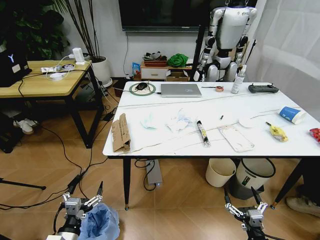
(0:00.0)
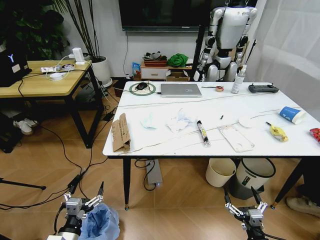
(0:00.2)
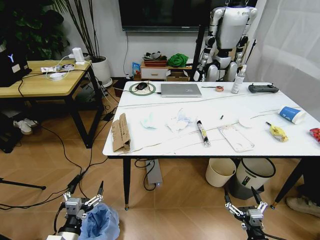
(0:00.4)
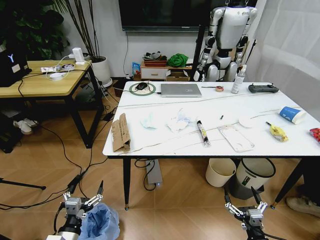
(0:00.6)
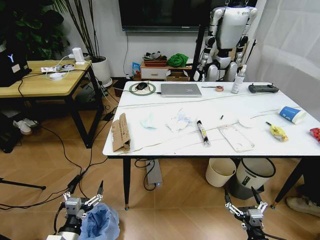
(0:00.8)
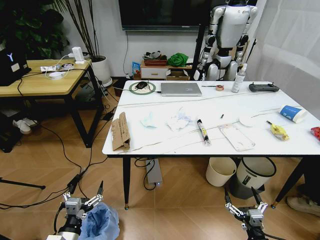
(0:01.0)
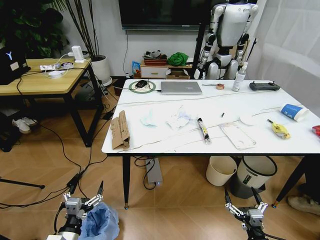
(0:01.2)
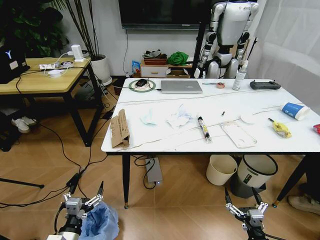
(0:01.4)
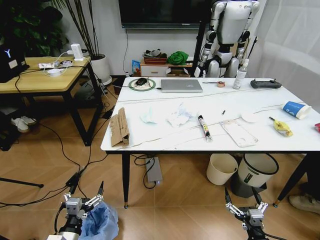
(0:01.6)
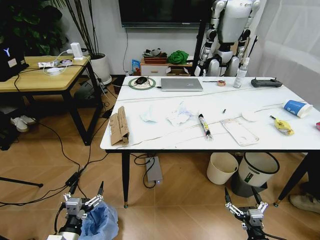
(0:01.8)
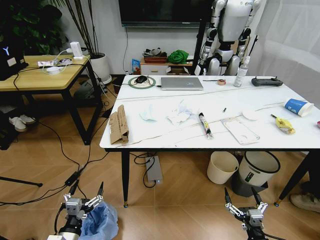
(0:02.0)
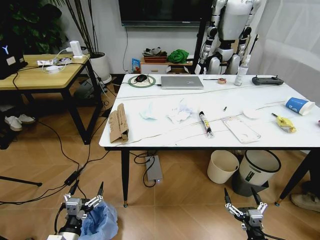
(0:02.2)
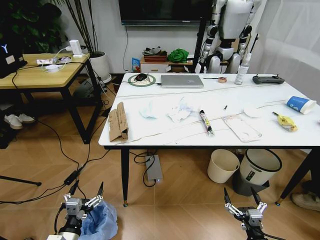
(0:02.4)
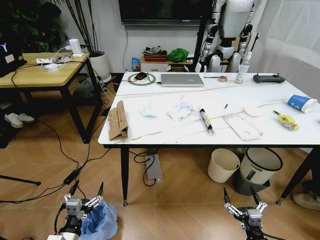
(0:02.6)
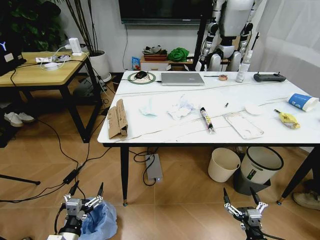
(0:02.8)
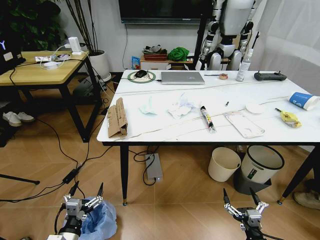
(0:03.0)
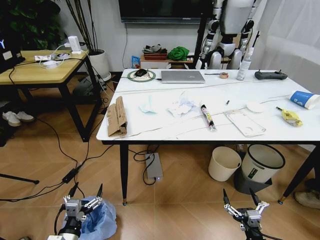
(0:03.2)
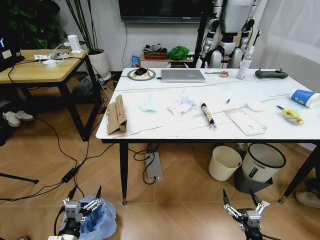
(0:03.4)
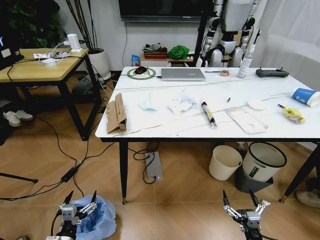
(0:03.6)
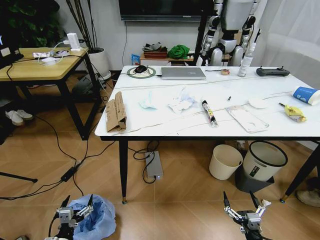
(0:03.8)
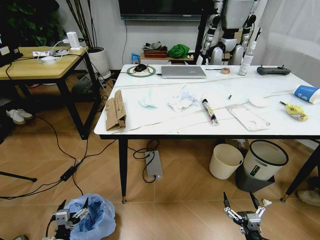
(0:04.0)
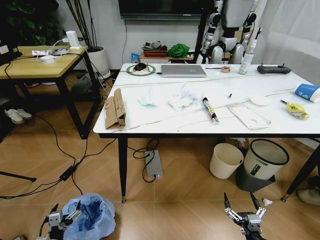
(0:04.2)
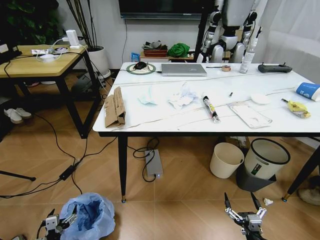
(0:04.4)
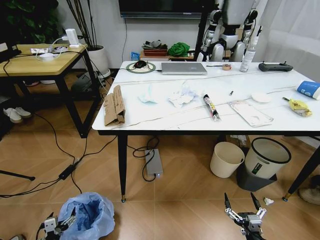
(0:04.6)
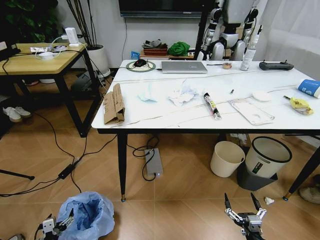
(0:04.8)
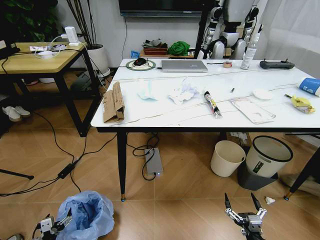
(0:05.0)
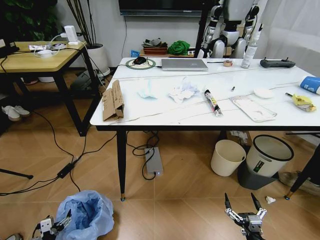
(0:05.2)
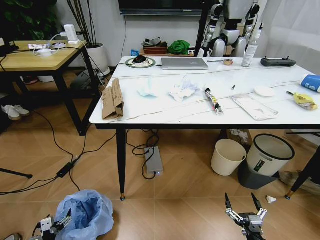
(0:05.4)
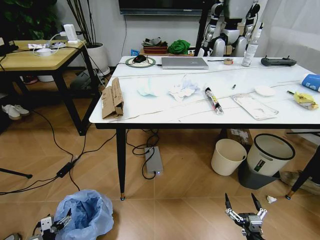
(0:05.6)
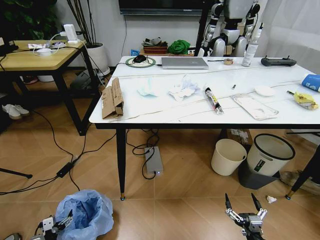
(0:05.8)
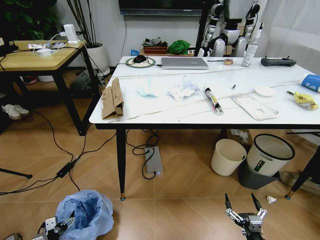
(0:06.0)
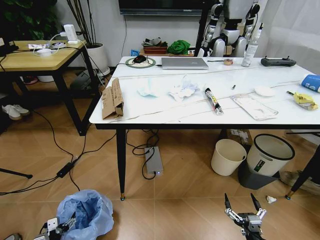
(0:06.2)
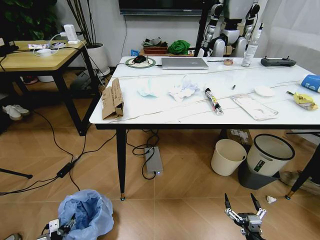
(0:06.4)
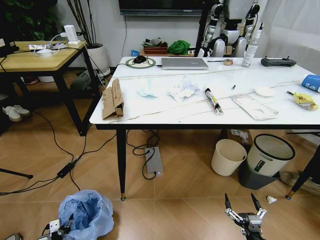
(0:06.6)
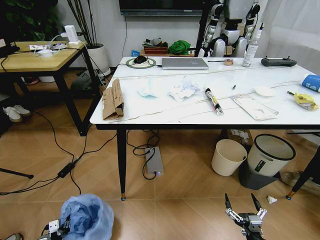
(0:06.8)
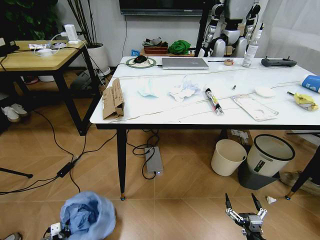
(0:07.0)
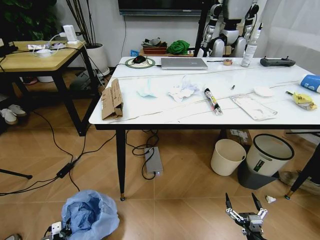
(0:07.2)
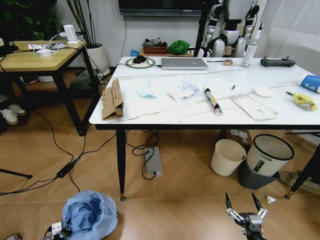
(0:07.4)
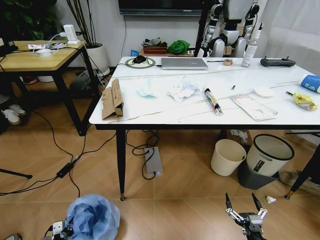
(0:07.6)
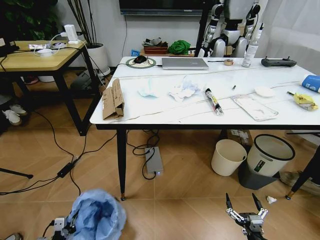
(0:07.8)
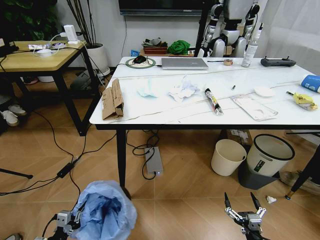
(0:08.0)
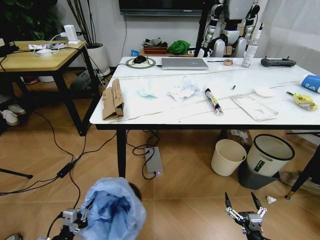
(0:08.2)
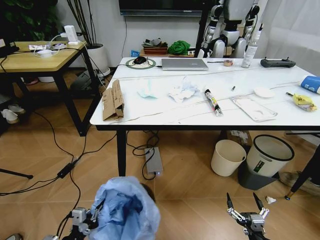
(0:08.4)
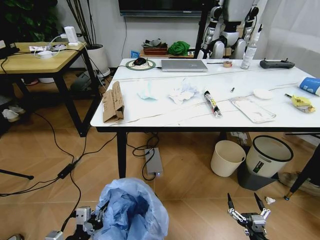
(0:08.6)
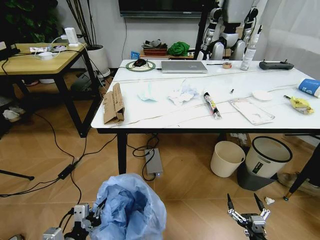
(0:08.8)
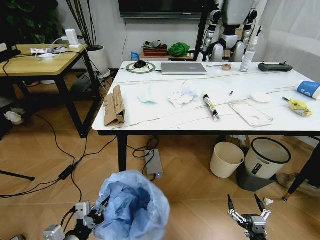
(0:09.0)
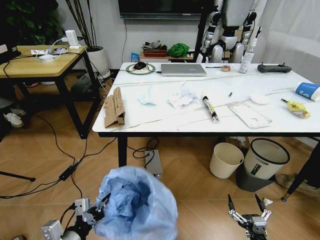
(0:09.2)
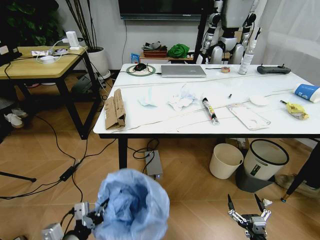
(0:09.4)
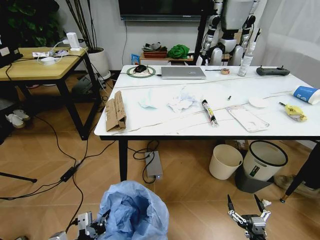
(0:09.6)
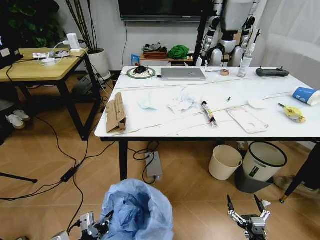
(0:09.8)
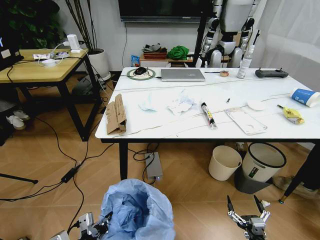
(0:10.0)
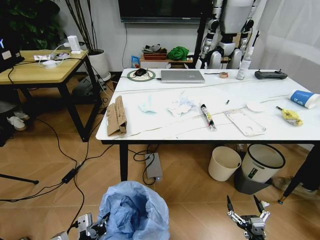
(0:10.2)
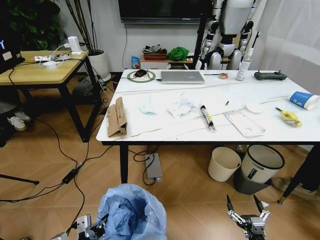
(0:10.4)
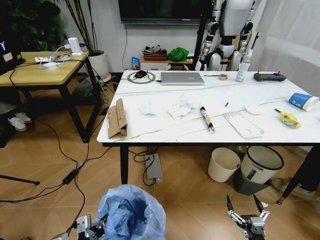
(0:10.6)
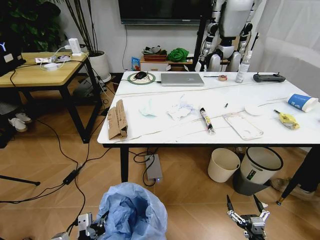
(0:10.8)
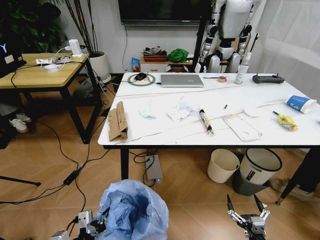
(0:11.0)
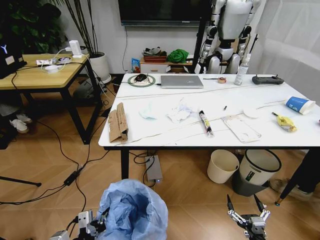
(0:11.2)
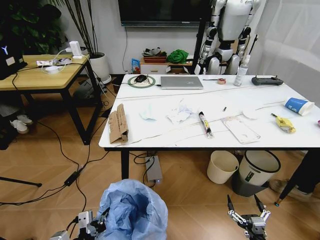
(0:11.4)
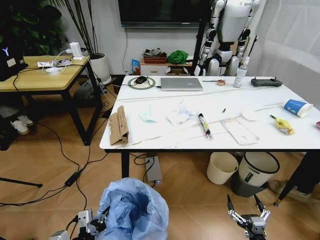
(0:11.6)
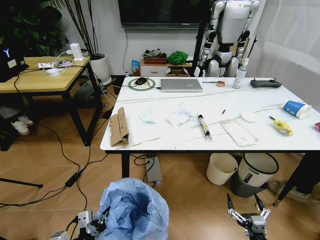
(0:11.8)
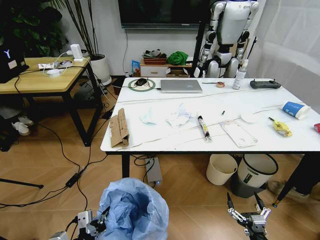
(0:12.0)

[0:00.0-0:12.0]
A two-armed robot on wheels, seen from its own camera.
Task of the whole recording: Pick up the trash bin and place the trash from the table into it.
0:03.0 to 0:04.4: The left gripper moves downward and to the left, some 15 cm.
0:04.4 to 0:06.0: The left gripper changes place by some 5 cm.
0:06.0 to 0:07.6: The left gripper closes.
0:07.6 to 0:09.0: The left gripper travels upward and to the right by approximately 30 cm.

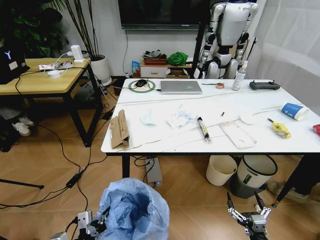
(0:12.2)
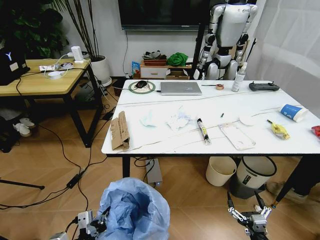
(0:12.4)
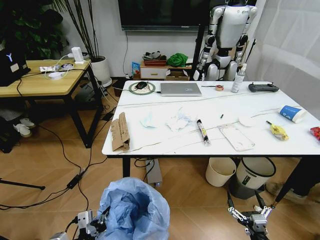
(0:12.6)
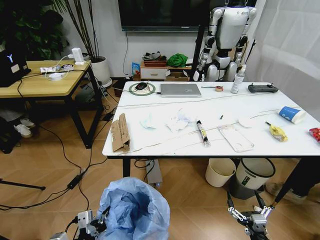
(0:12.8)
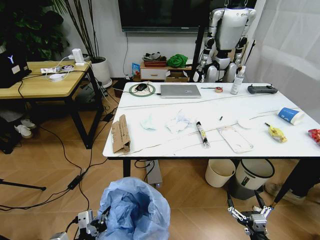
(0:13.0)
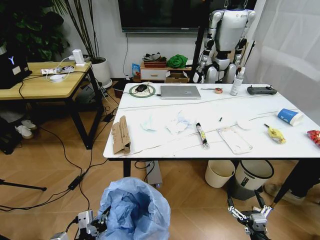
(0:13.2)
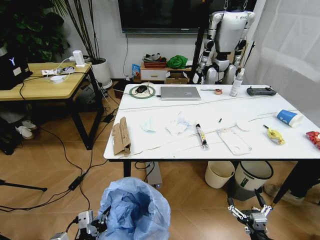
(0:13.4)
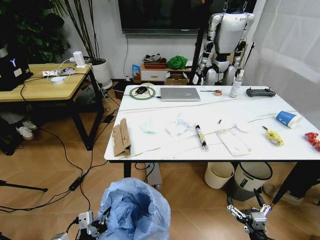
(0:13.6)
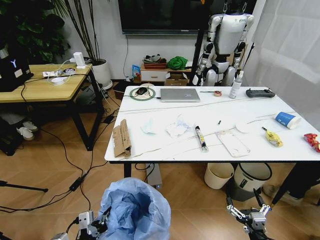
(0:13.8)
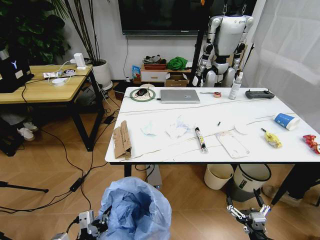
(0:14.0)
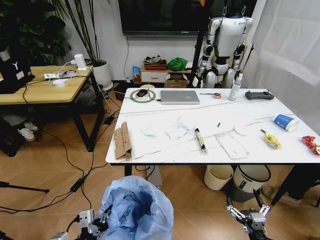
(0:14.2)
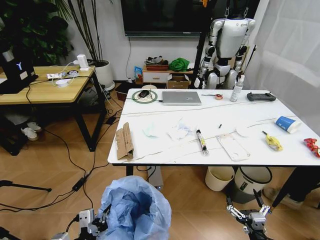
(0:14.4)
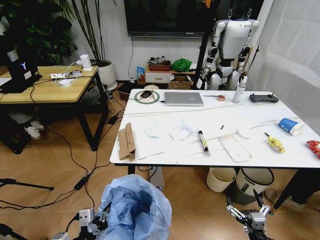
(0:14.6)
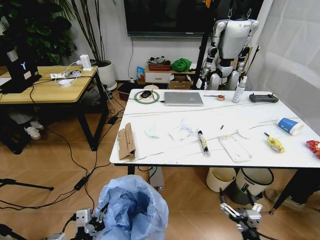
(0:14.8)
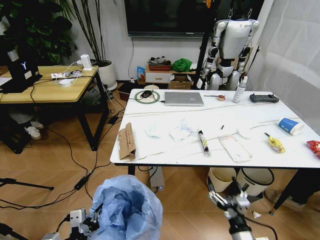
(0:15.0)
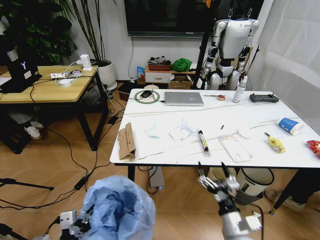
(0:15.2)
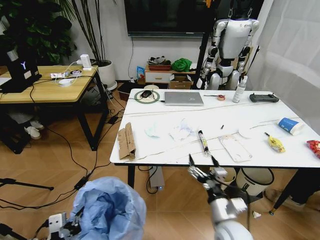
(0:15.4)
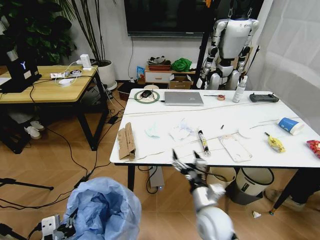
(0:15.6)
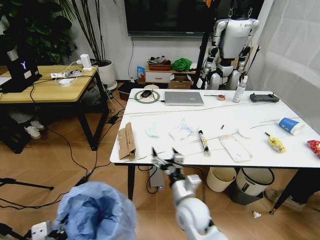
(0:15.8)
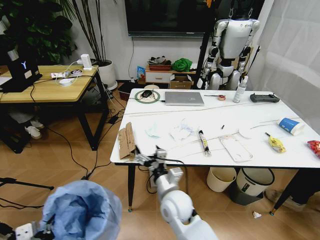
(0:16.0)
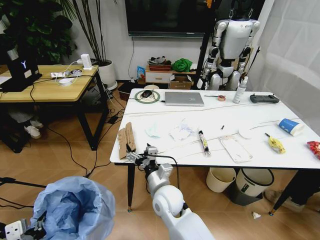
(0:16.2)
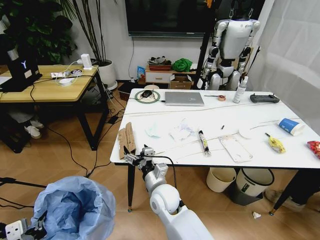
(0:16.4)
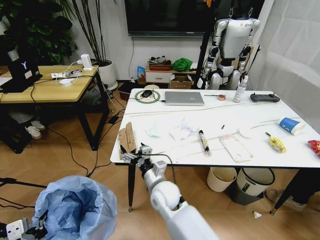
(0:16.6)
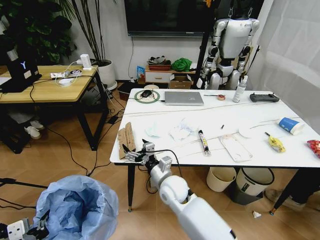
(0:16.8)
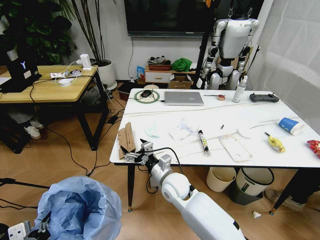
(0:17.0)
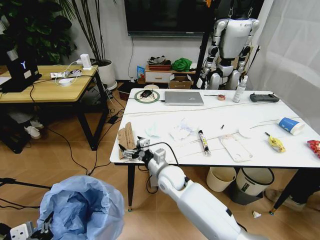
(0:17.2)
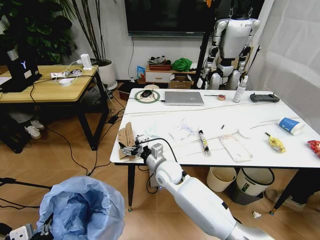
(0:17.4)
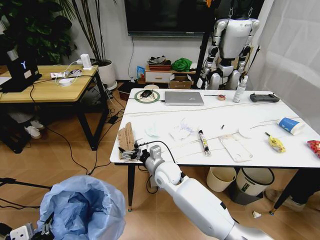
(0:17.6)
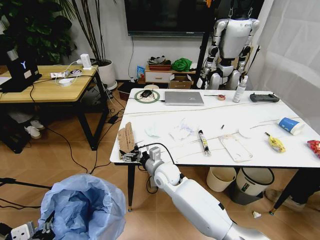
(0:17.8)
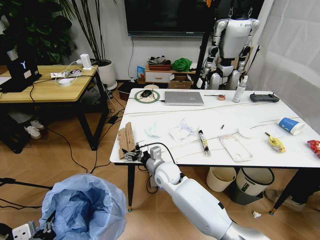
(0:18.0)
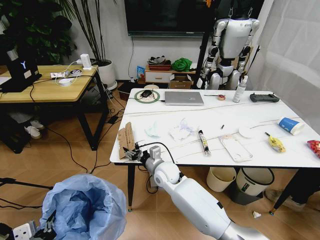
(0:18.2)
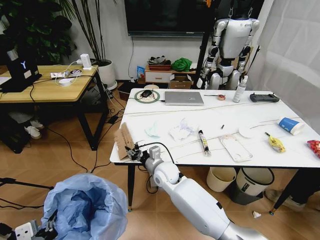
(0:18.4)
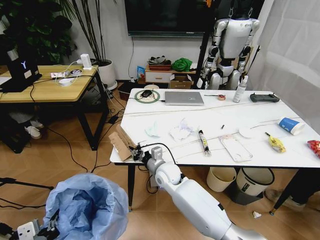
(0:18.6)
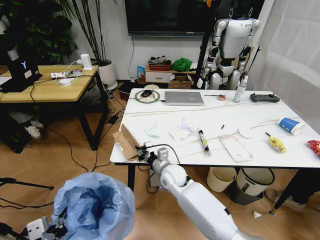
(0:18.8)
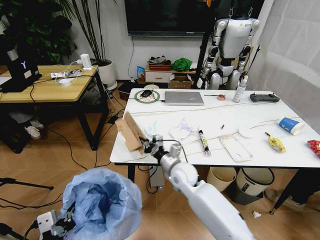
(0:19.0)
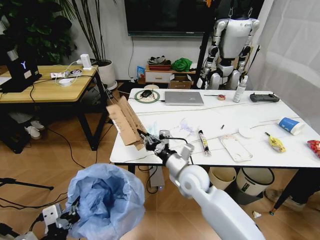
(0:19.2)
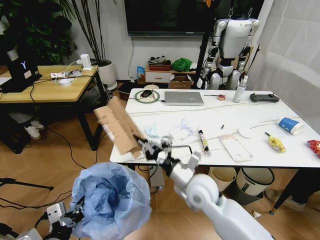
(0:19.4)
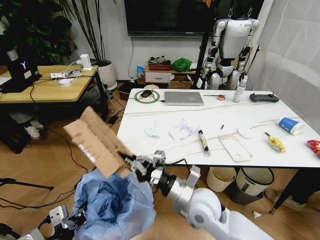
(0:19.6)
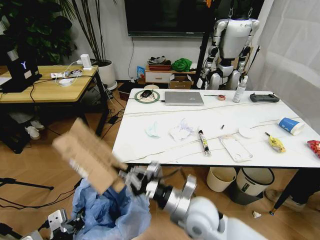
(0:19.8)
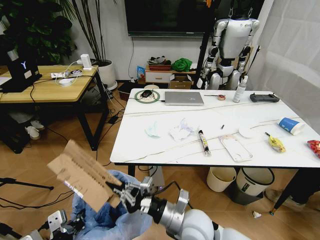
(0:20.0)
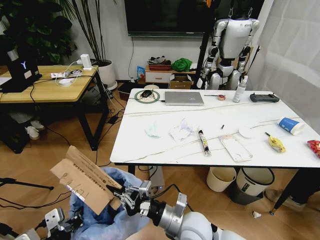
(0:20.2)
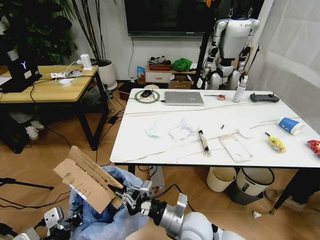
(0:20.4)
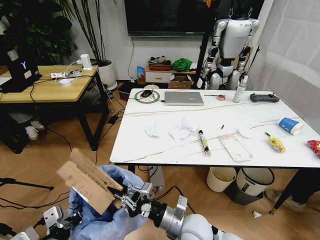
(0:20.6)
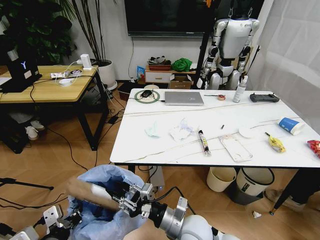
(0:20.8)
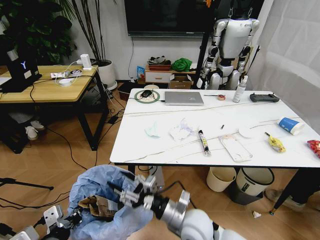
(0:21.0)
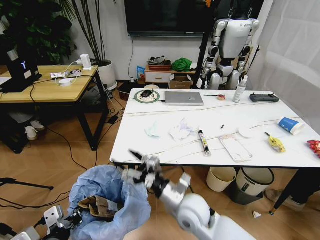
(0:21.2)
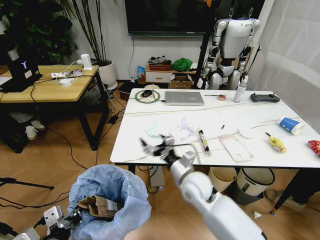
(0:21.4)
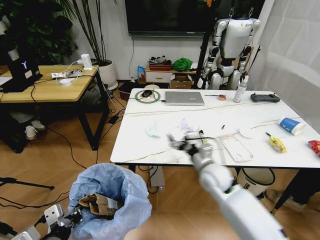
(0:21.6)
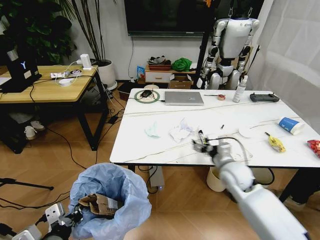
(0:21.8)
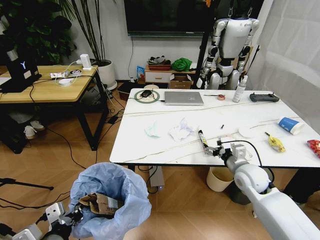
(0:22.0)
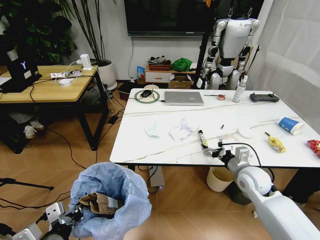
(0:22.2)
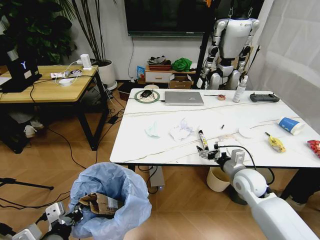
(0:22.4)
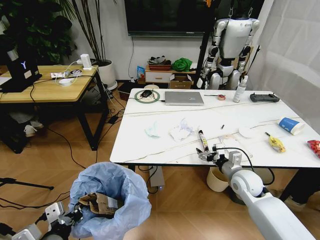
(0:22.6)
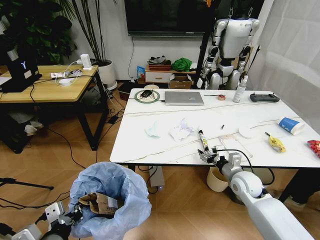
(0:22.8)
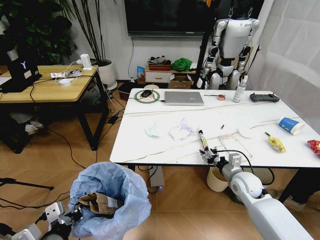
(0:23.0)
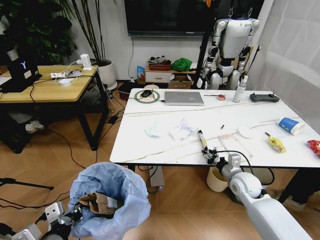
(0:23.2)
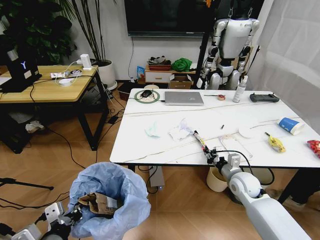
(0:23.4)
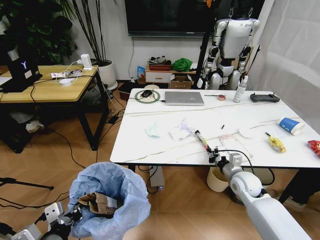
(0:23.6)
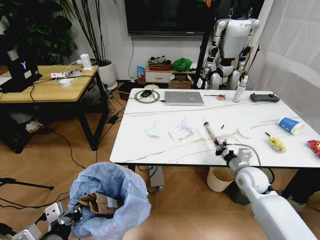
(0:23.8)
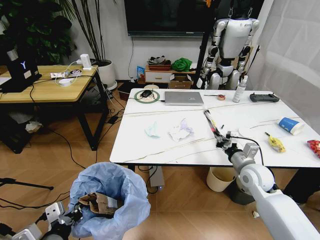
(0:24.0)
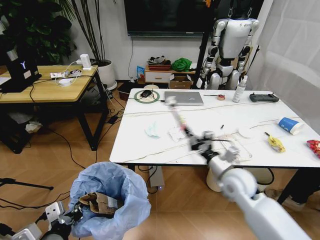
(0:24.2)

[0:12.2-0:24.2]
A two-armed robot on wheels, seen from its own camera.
Task of the whole recording: Pick up the trash bin and place the trash from the table into it.
0:13.8 to 0:15.2: The right gripper goes some 15 cm to the left, forward and upward.
0:15.2 to 0:16.6: The left gripper heads to the left, covering about 5 cm. Meanwhile the right gripper shifts about 25 cm to the left and forward.
0:16.6 to 0:18.2: The right gripper moves forward, roughly 10 cm, and closes.
0:18.2 to 0:19.8: The right gripper goes approximately 20 cm backward, to the right and upward, and closes up. Meanwhile the left gripper shifts by approximately 5 cm.
0:19.8 to 0:21.2: The right gripper opens up.
0:21.2 to 0:22.6: The right gripper moves to the right and forward, roughly 25 cm.
0:22.6 to 0:24.2: The right gripper travels to the left and upward by about 10 cm, and closes up.
